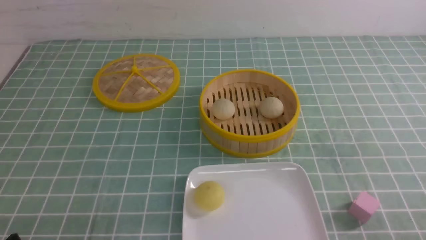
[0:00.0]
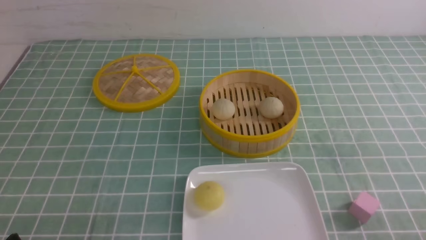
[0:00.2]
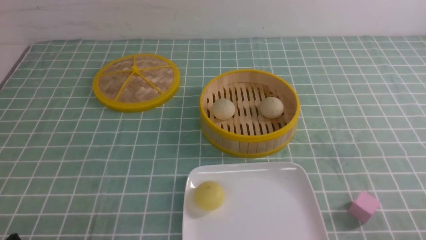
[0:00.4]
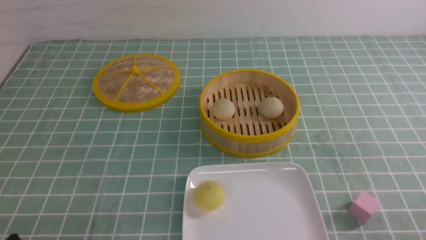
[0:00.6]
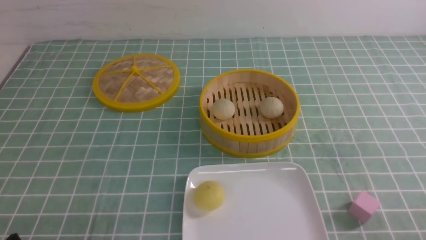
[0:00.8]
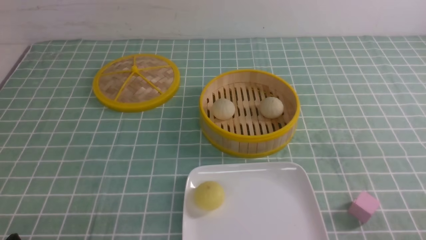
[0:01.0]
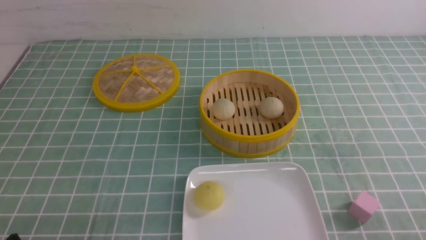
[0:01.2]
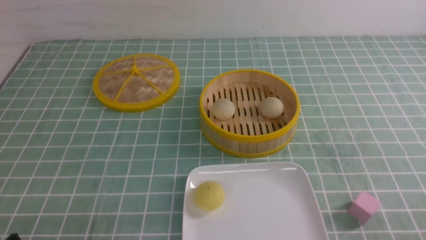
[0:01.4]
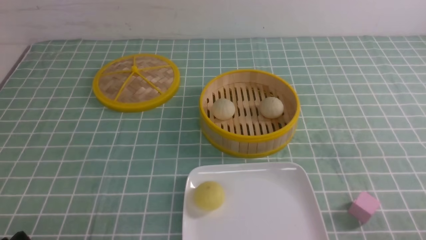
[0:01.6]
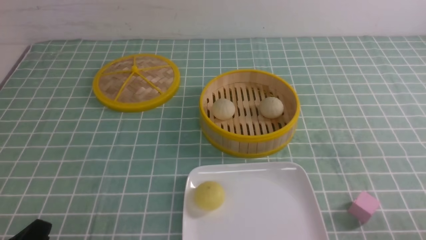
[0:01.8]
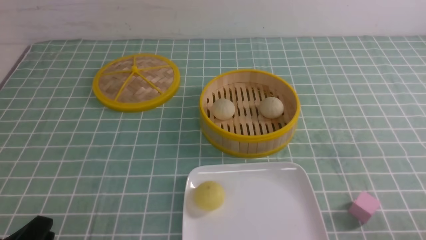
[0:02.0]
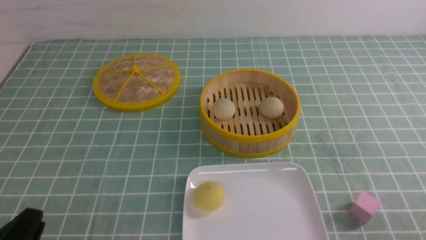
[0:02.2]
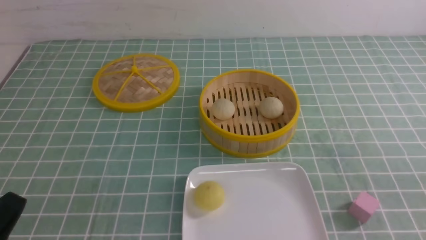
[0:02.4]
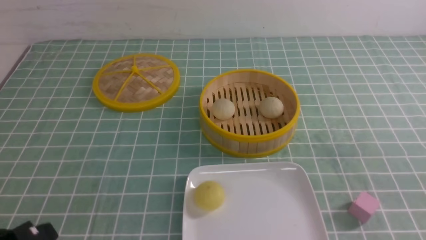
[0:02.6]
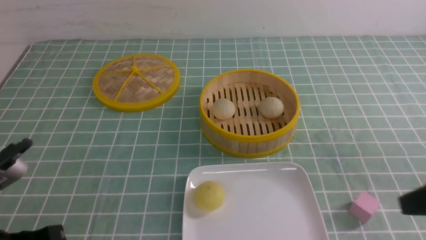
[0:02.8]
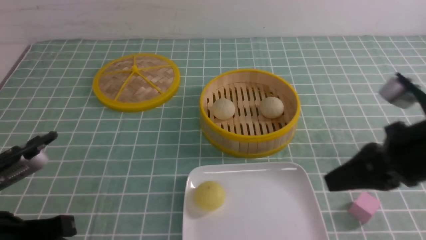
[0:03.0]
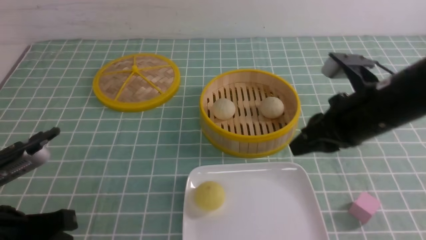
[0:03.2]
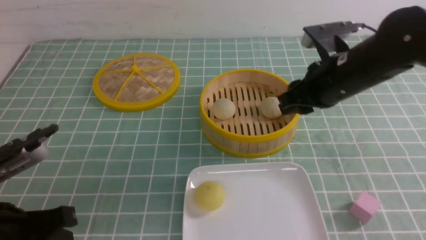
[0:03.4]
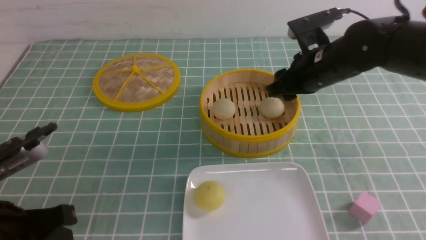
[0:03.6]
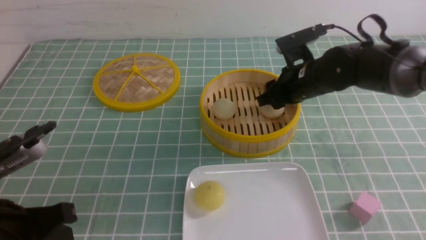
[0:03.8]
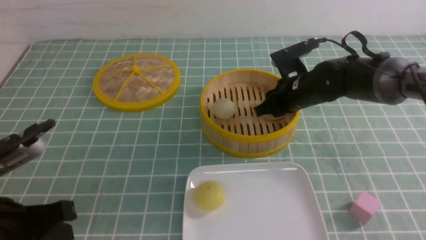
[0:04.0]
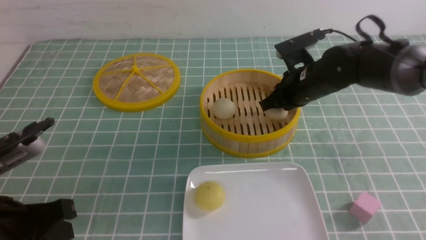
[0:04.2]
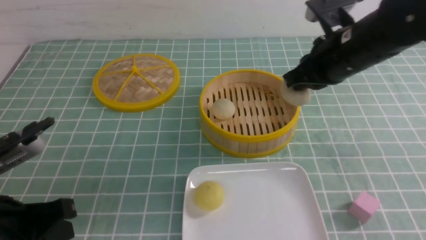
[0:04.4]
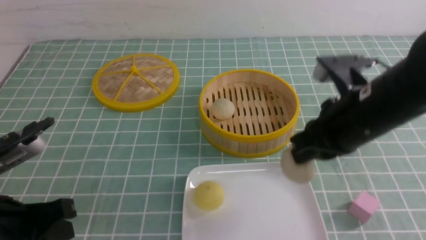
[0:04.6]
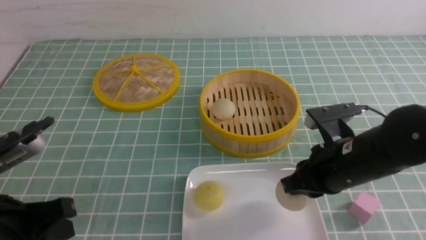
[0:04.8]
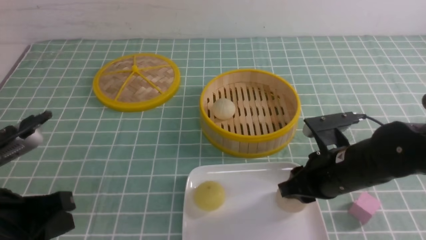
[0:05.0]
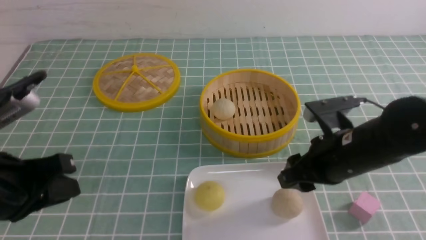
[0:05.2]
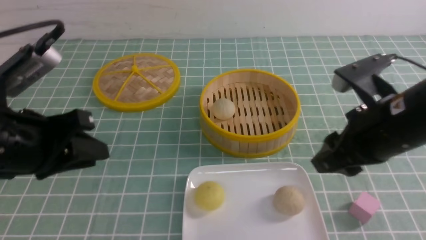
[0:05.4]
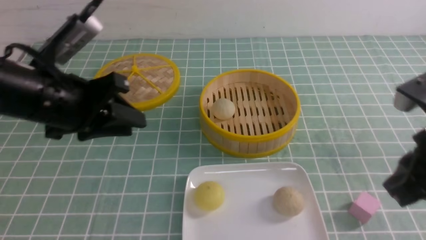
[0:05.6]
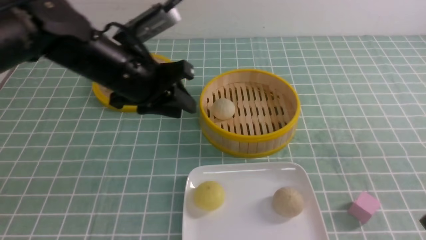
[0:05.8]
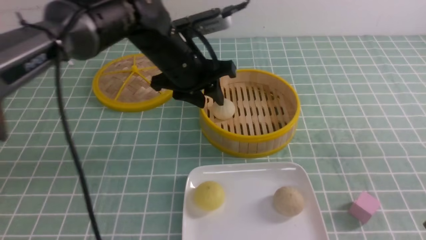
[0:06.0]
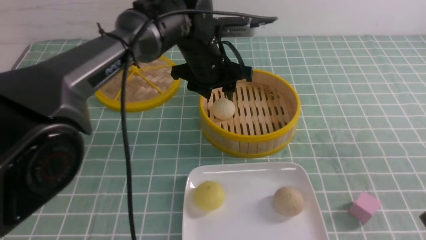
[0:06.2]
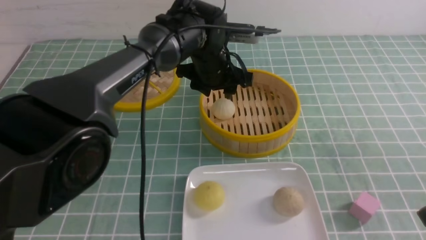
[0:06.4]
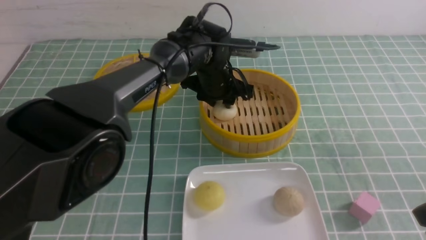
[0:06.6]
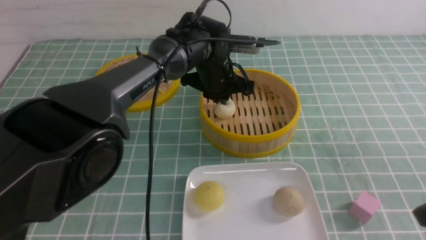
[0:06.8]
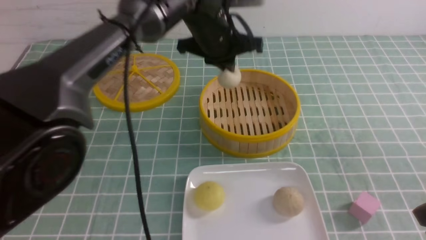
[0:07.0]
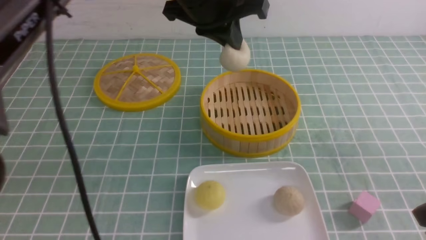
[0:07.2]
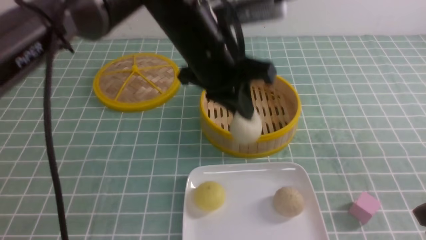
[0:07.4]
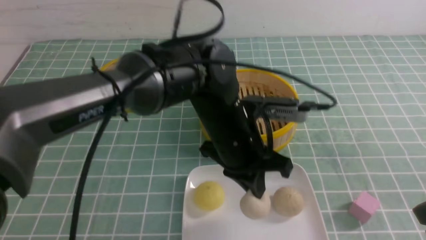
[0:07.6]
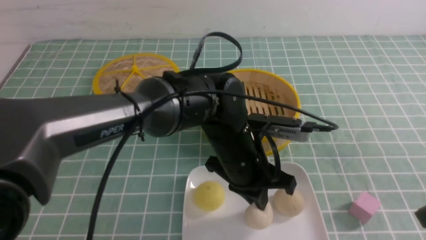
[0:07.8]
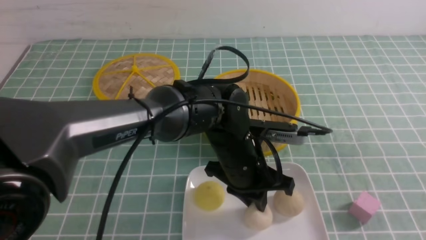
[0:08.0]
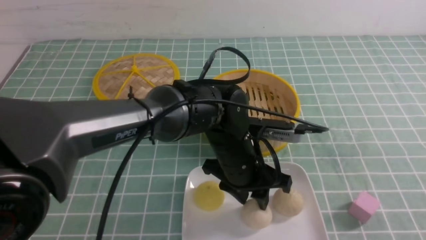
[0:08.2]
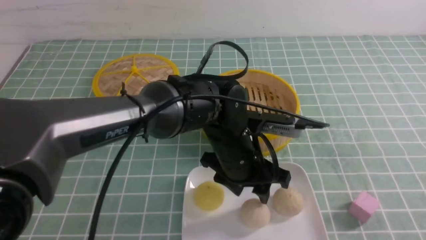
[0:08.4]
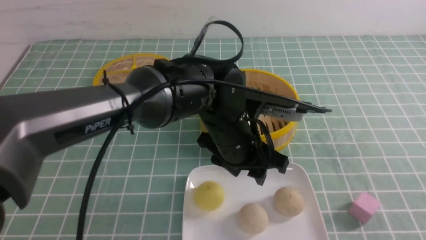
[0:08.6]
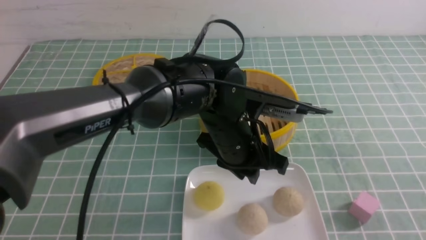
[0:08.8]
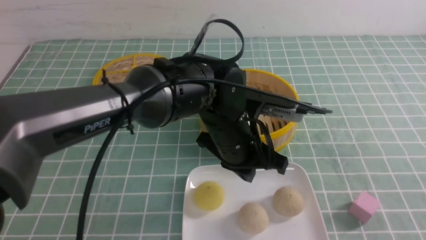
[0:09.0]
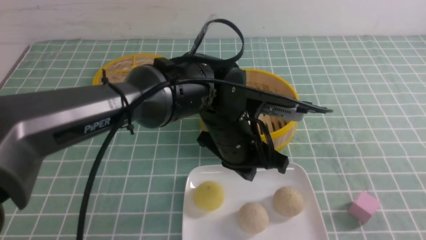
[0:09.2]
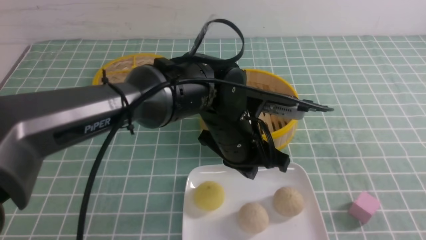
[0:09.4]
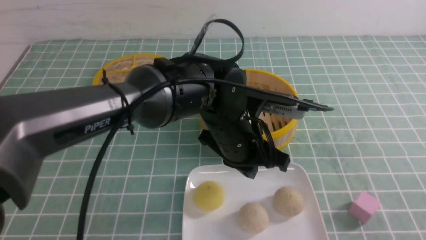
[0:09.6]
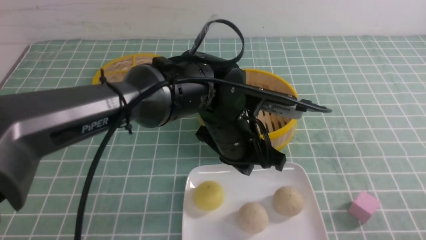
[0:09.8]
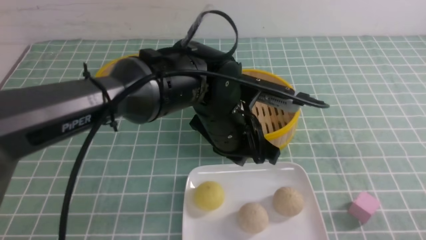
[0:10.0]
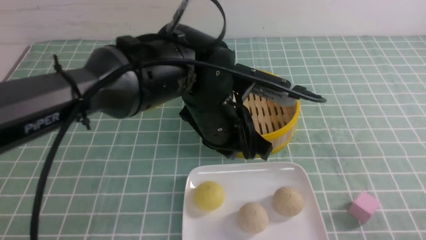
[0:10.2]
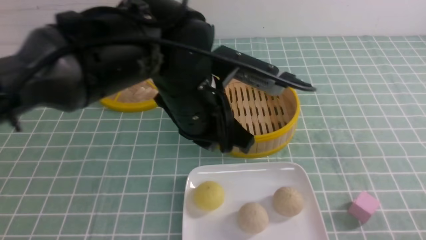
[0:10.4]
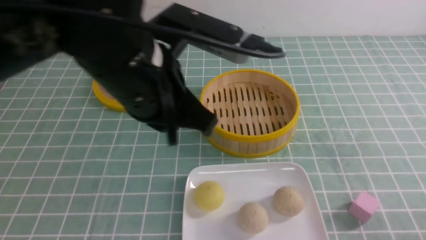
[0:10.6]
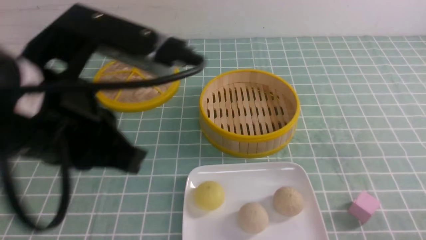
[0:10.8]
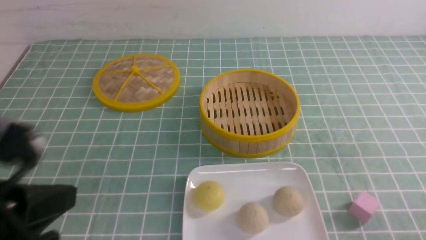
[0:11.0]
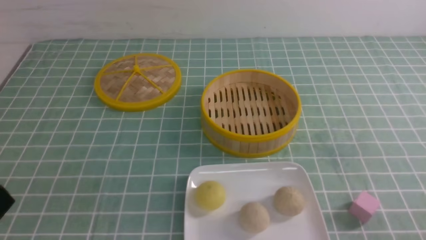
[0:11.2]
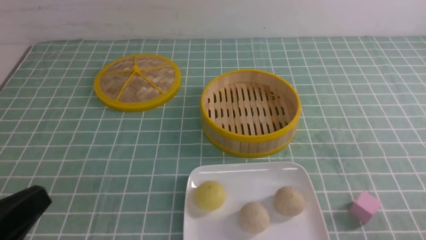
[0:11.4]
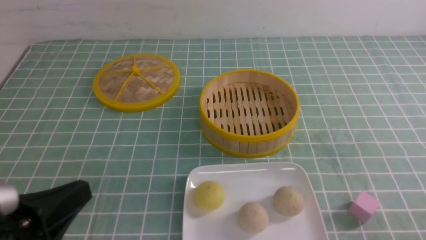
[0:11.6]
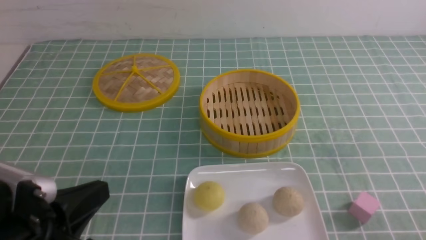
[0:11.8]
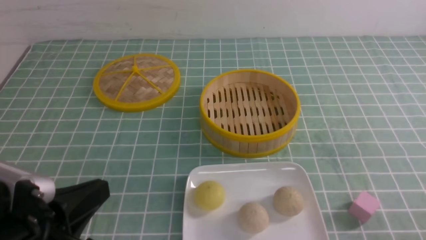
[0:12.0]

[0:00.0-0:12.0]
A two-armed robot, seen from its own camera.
Step, 0:00.0 to 0:04.2: use the right arm to grab the steamed stuffed bun that is closest to it.
Step, 0:04.4 to 0:05.2: use the right arm to put the steamed stuffed bun into the plate.
Step, 0:05.4 to 0:06.6: use the left arm to grab the steamed stuffed bun that is closest to it.
Step, 0:06.8 to 0:08.0: use the left arm to put the steamed stuffed bun into the plate.
0:01.6 to 0:03.0: The right gripper goes some 25 cm forward, upward and to the left, and closes up, while the left gripper goes approximately 10 cm upward and forward, and closes up.
0:03.0 to 0:04.4: The right gripper is displaced forward and to the left by roughly 15 cm, and opens, then closes once more.
0:04.4 to 0:06.0: The left gripper goes roughly 30 cm forward and to the right, and opens its fingers; the right gripper is displaced backward and to the right by roughly 20 cm, and opens and closes again.
0:06.0 to 0:07.6: The left gripper heads backward and to the right, covering roughly 10 cm, and closes.
0:07.6 to 0:09.0: The right gripper travels backward by about 10 cm. The left gripper opens and closes again.
0:09.0 to 0:10.4: The right gripper goes approximately 10 cm downward; the left gripper shifts about 10 cm upward and to the left.
0:10.4 to 0:12.0: The left gripper heads to the left and backward, covering about 25 cm.

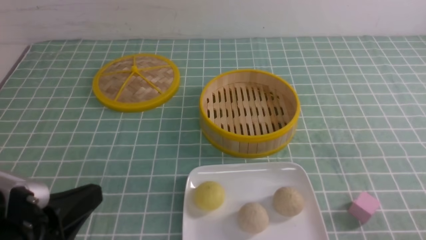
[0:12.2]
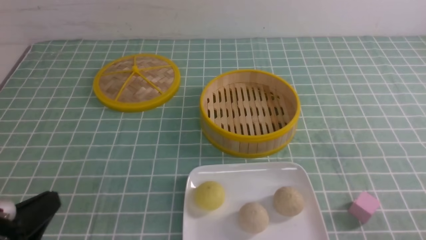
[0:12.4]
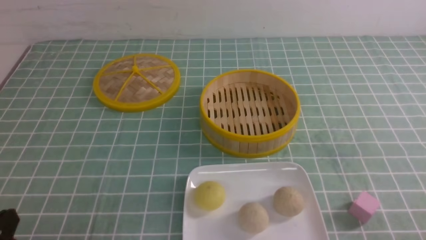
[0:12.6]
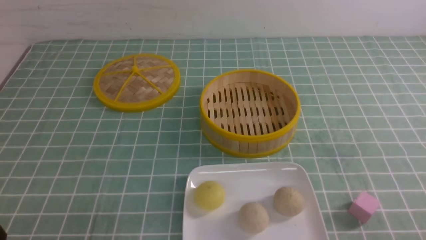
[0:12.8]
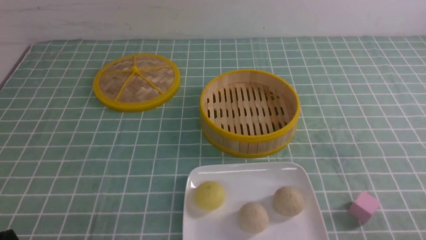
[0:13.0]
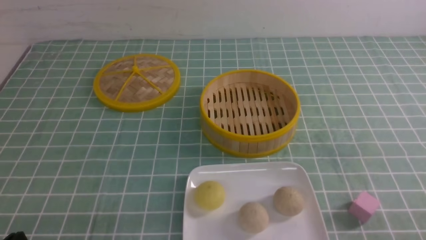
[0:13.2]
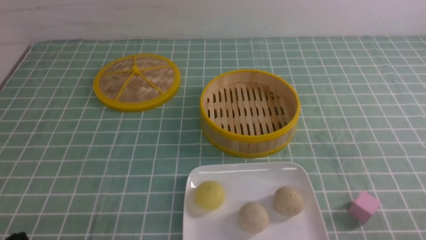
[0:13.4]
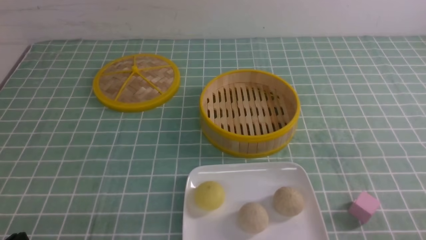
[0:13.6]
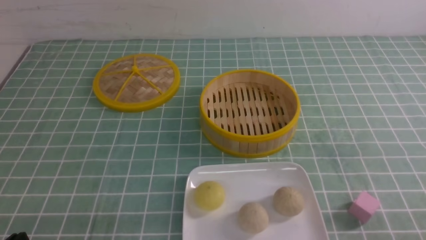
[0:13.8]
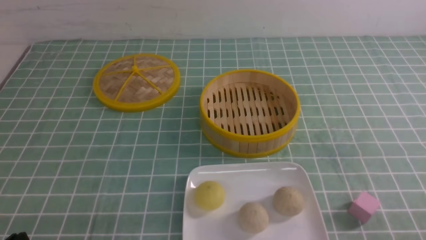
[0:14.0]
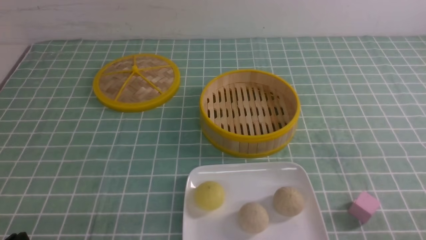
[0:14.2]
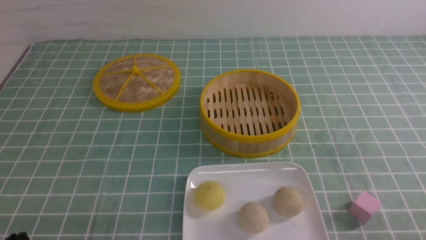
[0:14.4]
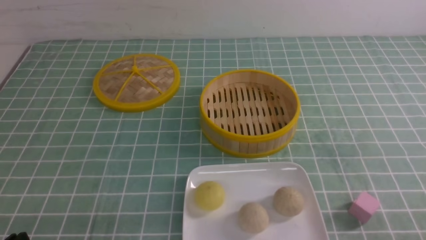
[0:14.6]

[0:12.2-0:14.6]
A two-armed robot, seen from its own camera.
0:12.2 to 0:13.4: The left gripper heads downward, covering about 10 cm.
0:13.4 to 0:14.6: Both grippers stay put.
